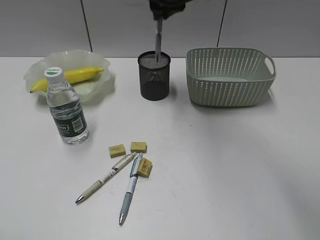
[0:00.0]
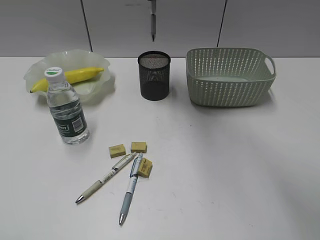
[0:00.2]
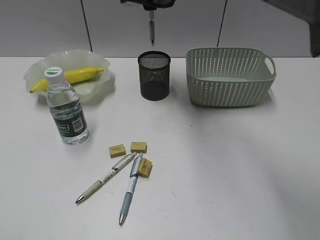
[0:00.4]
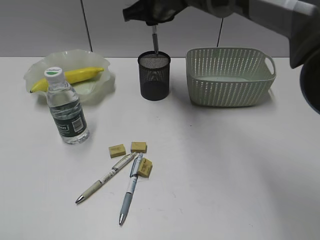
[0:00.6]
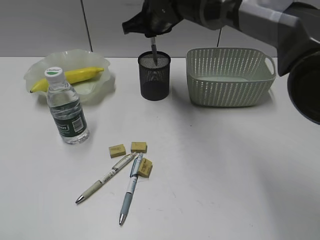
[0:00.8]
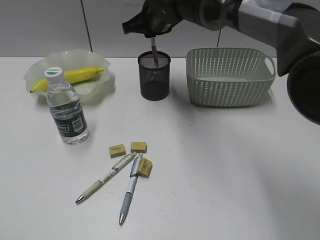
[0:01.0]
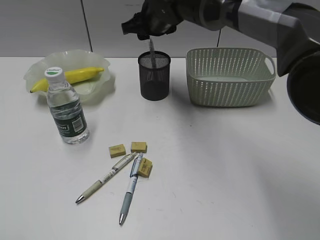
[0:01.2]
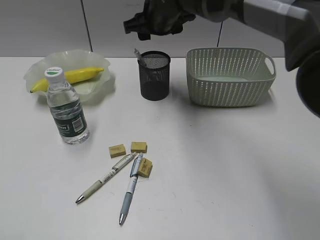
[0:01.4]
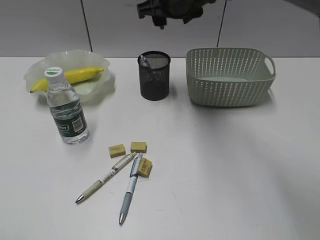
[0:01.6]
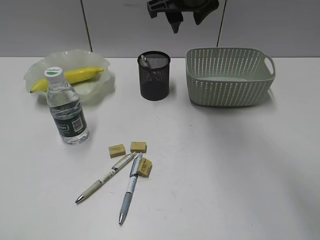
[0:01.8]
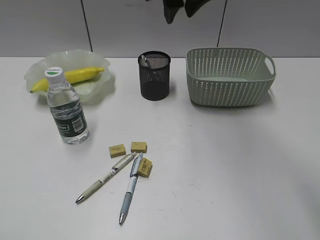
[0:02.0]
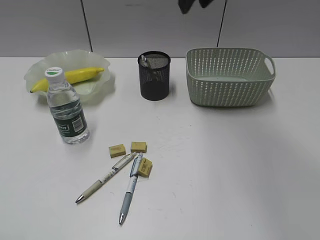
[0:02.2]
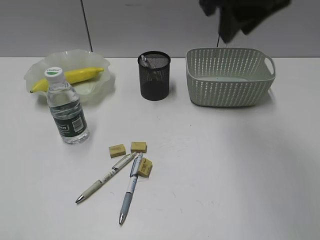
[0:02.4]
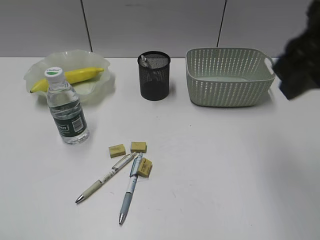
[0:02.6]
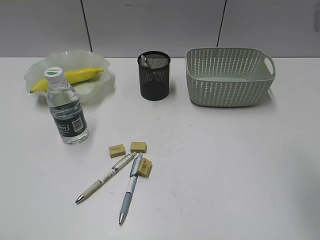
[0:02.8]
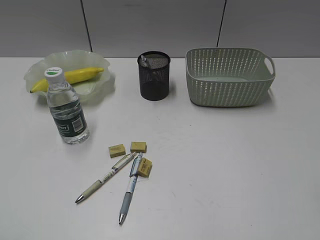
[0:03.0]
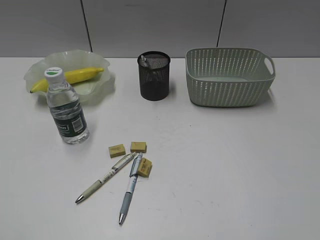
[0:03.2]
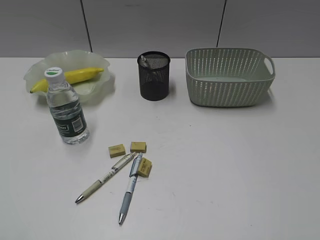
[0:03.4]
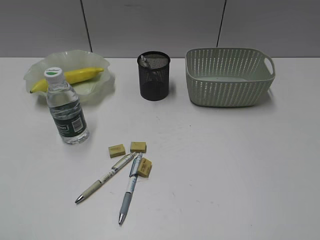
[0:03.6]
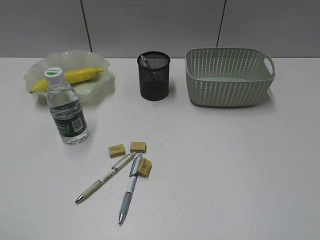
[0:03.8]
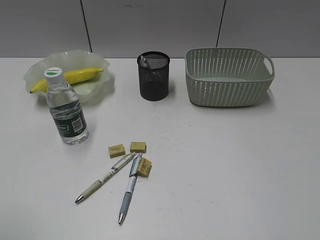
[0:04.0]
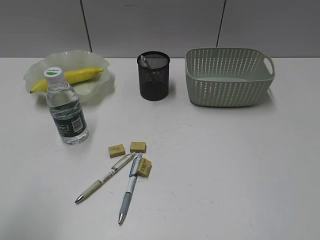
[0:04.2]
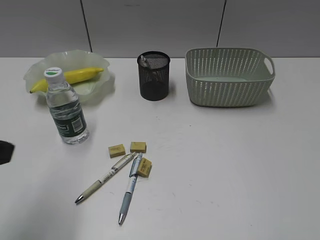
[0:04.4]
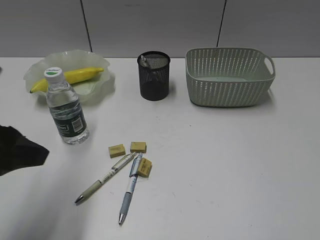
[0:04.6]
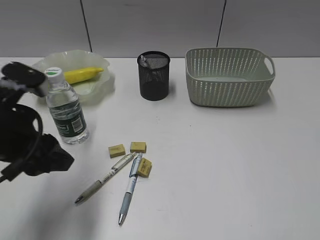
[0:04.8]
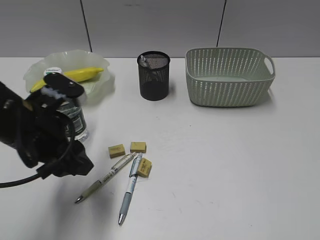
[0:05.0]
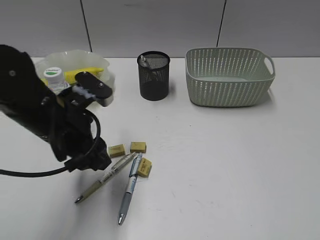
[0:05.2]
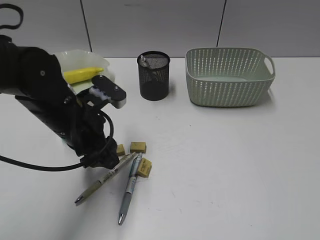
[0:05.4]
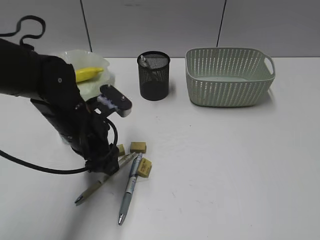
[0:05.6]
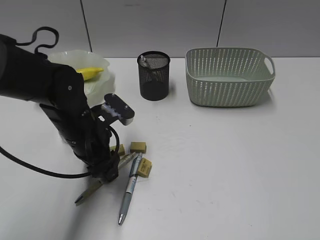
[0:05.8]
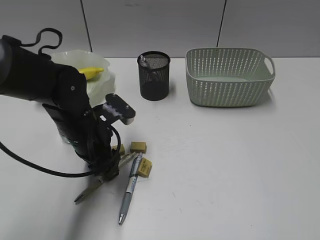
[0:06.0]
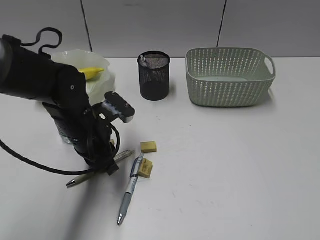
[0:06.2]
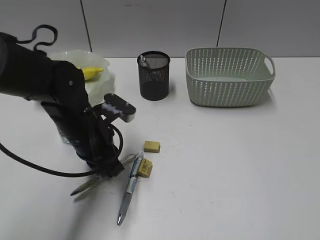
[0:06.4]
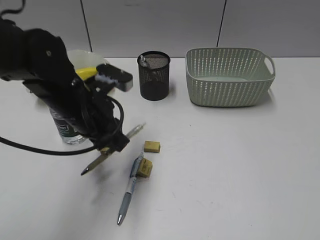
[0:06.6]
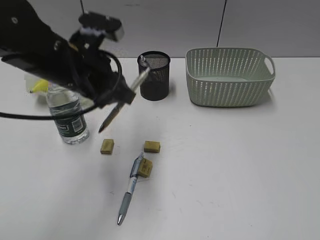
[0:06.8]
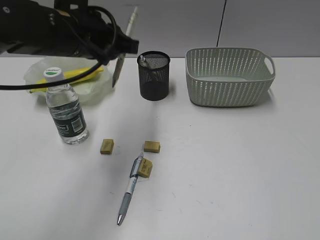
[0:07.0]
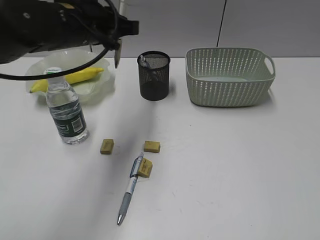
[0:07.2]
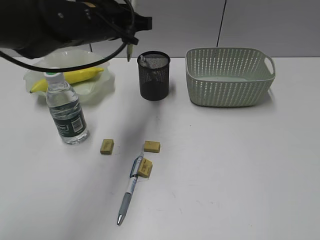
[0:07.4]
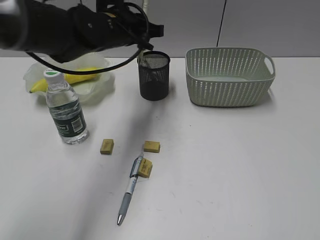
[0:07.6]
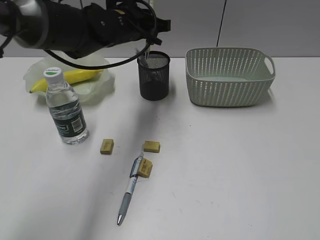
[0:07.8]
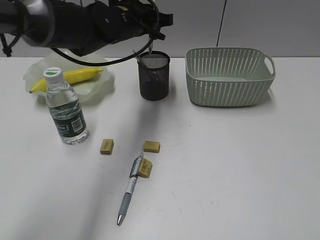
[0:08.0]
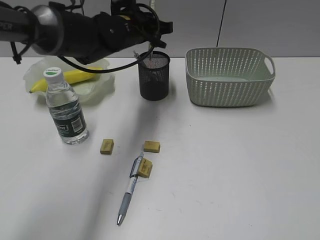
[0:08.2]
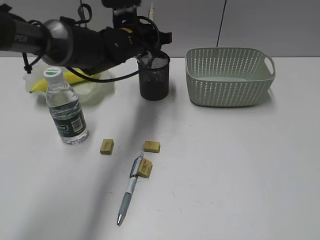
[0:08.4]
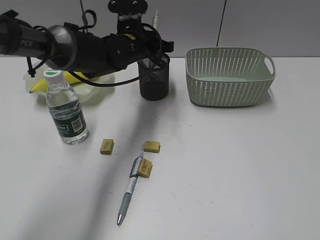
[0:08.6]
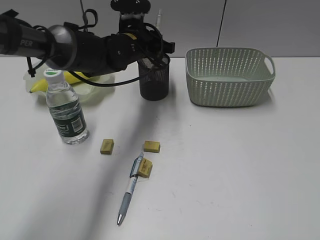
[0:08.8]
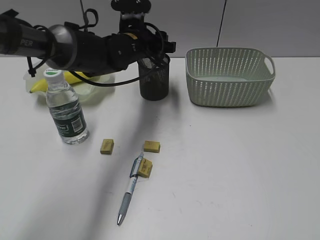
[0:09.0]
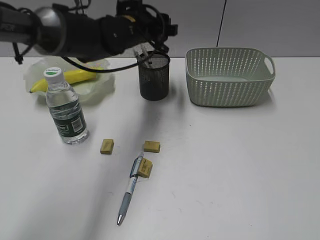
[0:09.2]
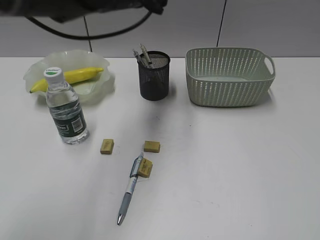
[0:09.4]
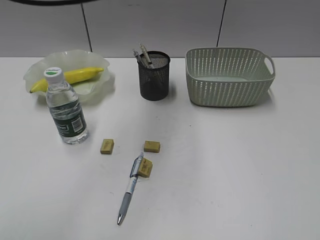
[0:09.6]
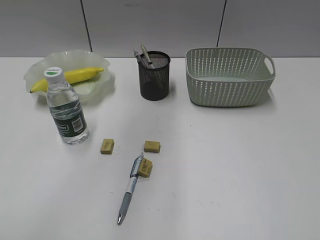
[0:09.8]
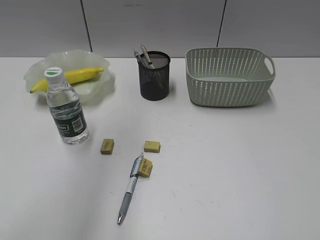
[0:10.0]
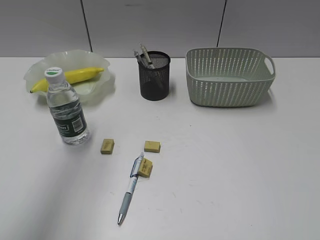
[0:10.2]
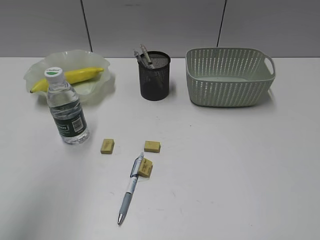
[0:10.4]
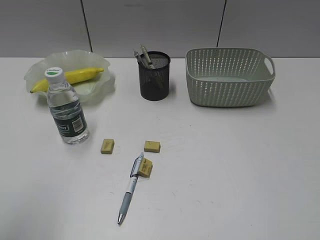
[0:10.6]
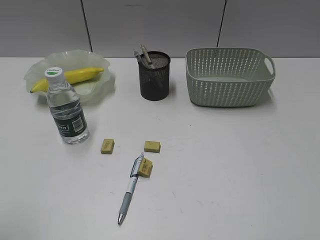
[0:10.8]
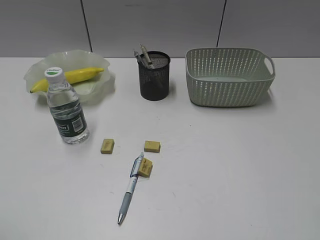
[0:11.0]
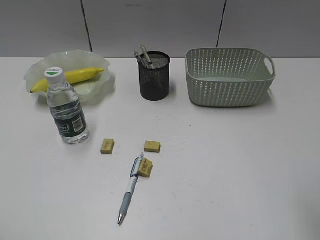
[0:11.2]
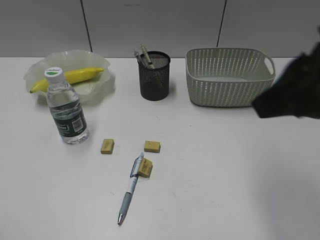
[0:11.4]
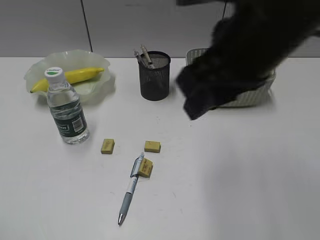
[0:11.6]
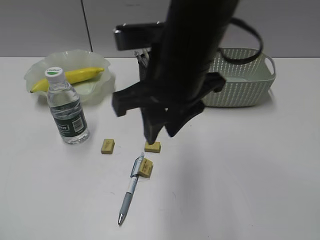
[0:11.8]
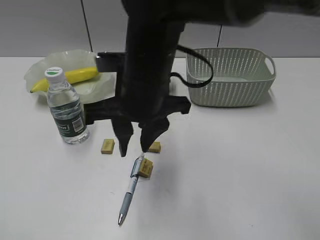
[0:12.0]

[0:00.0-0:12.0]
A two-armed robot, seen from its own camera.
Step, 0:00.0 to 0:01.4: Place the gray pen in pen holder with right gripper.
Step, 0:01.6 to 0:06.2: Grasp the yellow pen with left gripper.
Step, 0:06.4 to 0:09.0: Place the yellow pen in pen holder with left gripper.
0:00.0 to 0:01.6: The right gripper opens its fingers.
0:01.6 to 0:03.0: The right gripper goes roughly 40 cm backward and to the right.
0:03.0 to 0:04.4: The left gripper shifts approximately 15 cm forward and to the right.
0:04.4 to 0:06.0: The left gripper is displaced forward, downward and to the right by some 25 cm.
0:06.0 to 0:07.6: The left gripper heads upward and forward, covering roughly 15 cm, and closes up.
0:07.6 to 0:09.0: The left gripper shifts about 5 cm downward, and opens.
0:09.0 to 0:10.4: The left gripper heads backward, upward and to the left, covering some 40 cm.
0:10.4 to 0:12.0: The right gripper moves to the left and forward, roughly 40 cm. Meanwhile the left gripper goes roughly 20 cm backward and downward.

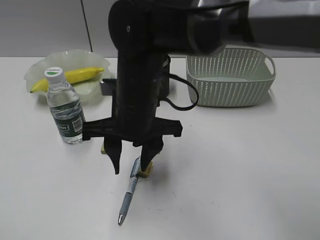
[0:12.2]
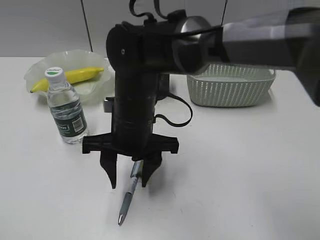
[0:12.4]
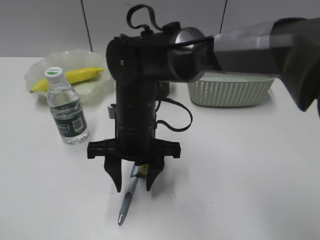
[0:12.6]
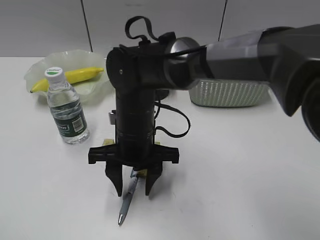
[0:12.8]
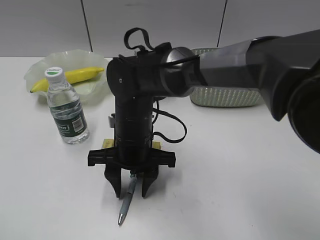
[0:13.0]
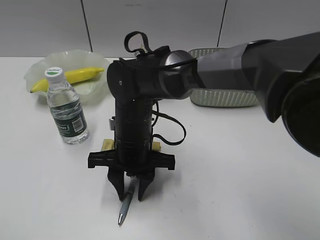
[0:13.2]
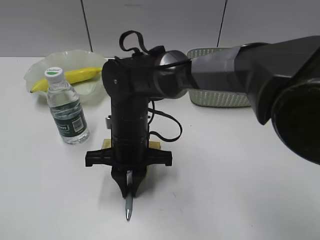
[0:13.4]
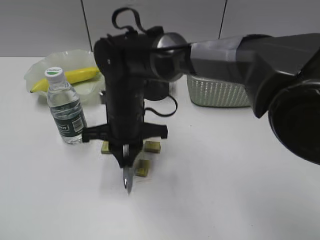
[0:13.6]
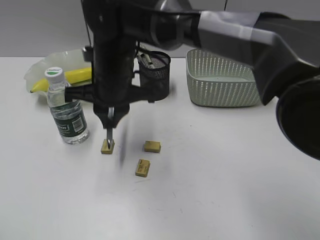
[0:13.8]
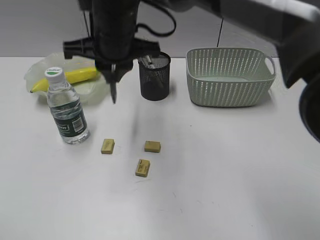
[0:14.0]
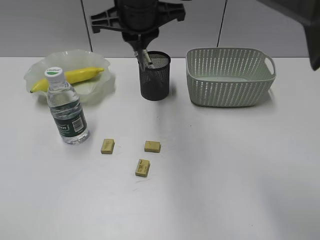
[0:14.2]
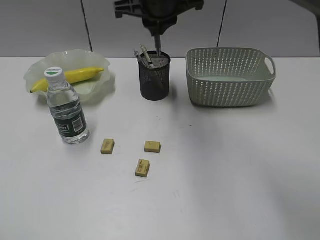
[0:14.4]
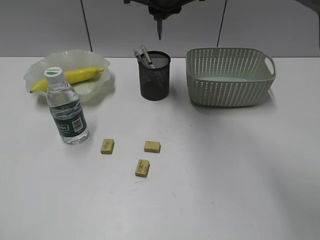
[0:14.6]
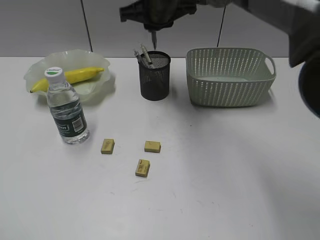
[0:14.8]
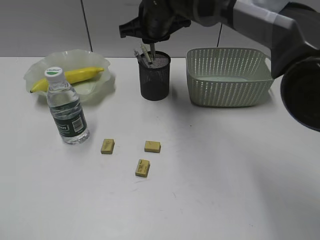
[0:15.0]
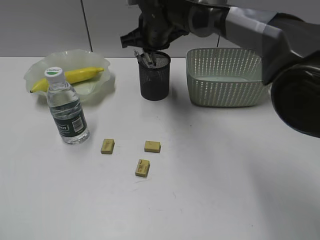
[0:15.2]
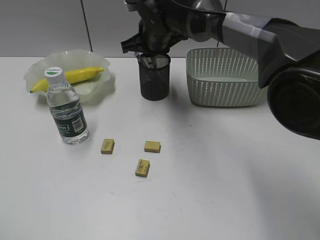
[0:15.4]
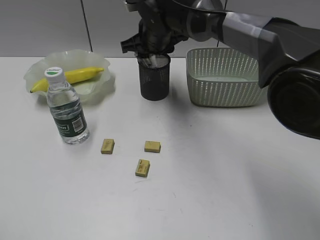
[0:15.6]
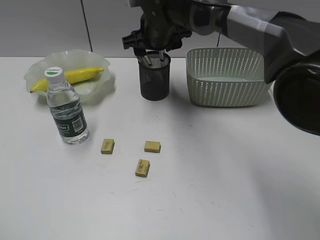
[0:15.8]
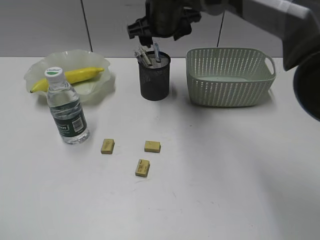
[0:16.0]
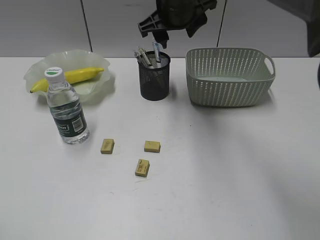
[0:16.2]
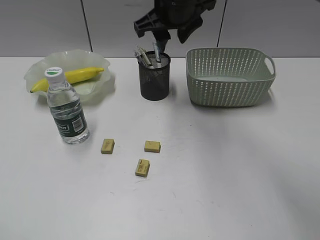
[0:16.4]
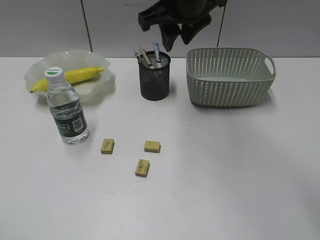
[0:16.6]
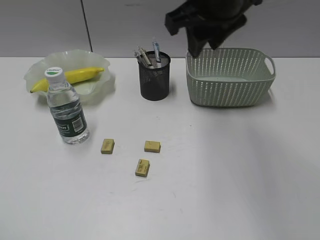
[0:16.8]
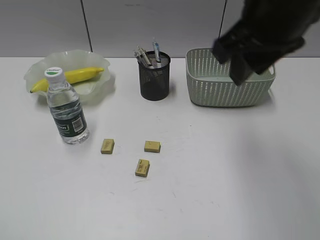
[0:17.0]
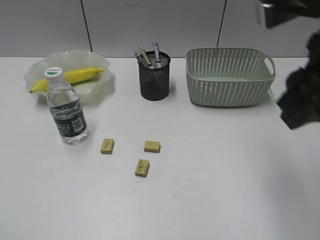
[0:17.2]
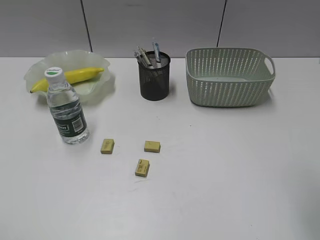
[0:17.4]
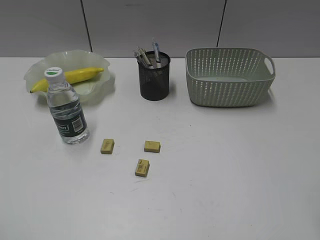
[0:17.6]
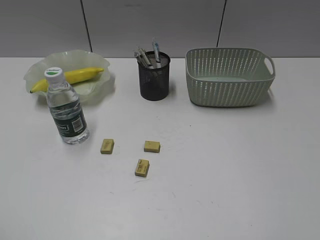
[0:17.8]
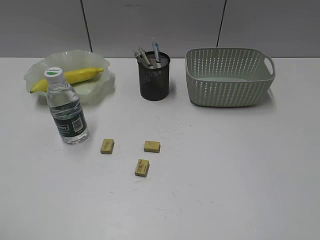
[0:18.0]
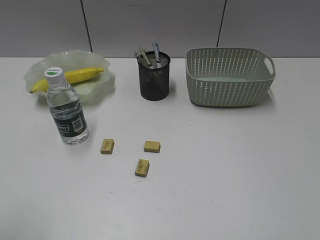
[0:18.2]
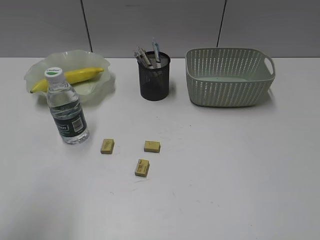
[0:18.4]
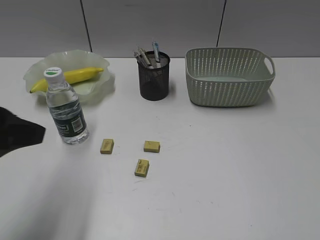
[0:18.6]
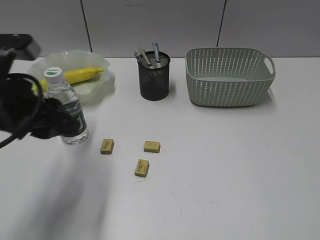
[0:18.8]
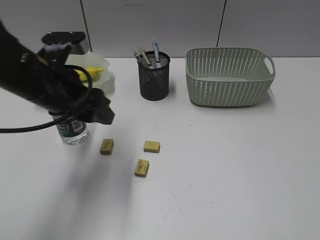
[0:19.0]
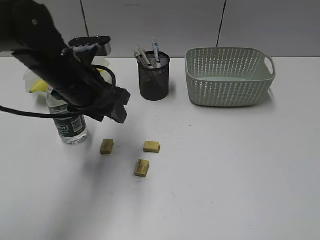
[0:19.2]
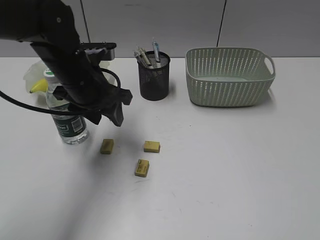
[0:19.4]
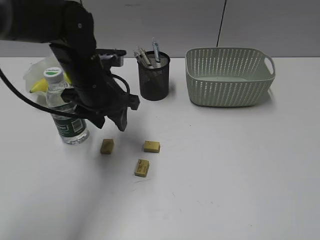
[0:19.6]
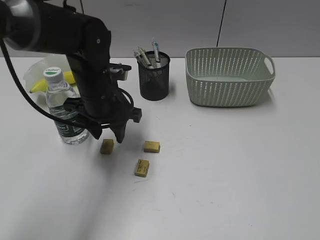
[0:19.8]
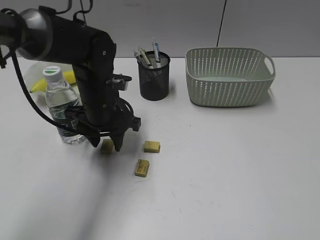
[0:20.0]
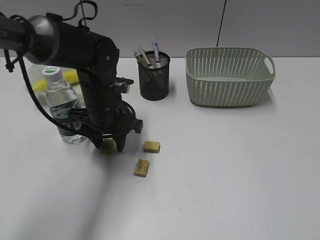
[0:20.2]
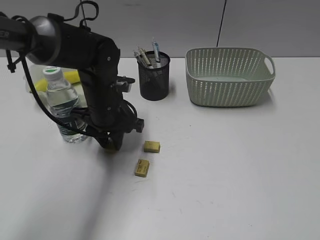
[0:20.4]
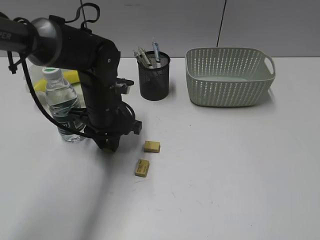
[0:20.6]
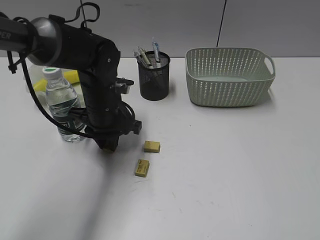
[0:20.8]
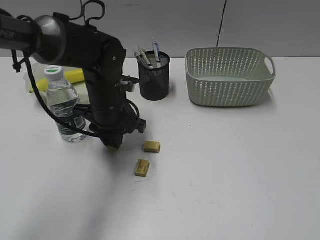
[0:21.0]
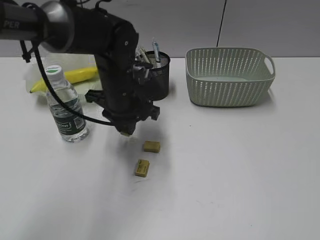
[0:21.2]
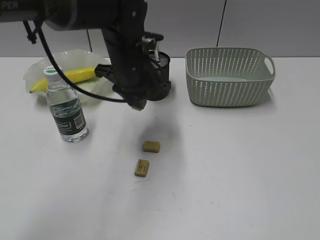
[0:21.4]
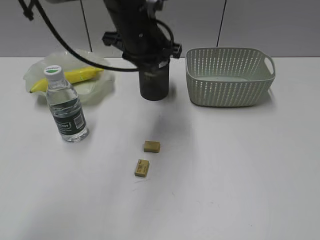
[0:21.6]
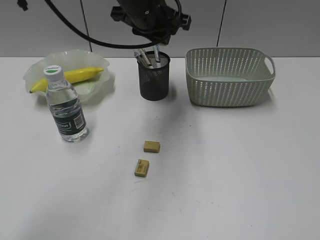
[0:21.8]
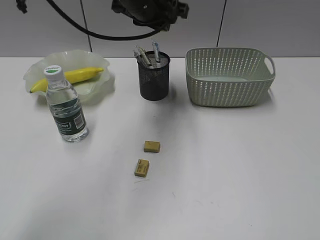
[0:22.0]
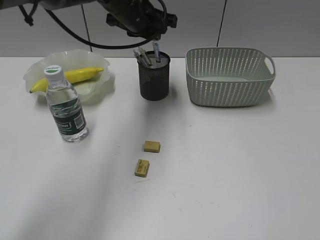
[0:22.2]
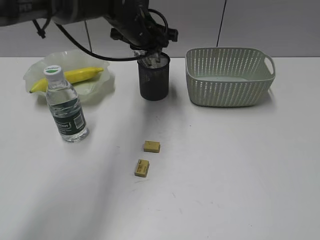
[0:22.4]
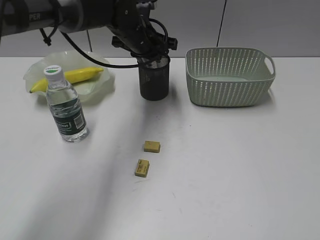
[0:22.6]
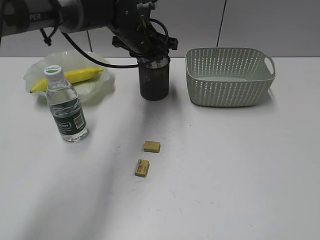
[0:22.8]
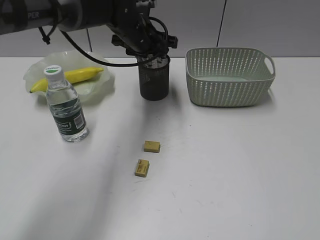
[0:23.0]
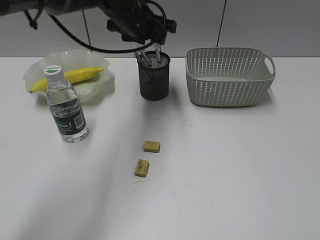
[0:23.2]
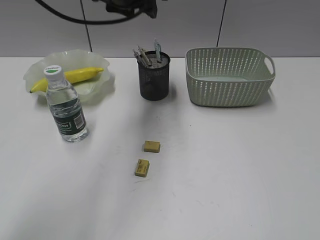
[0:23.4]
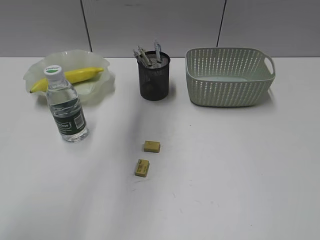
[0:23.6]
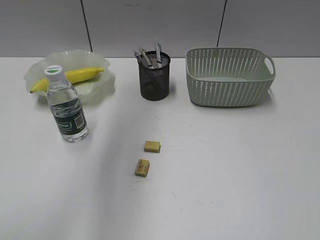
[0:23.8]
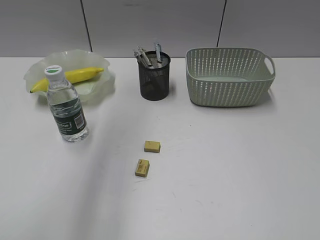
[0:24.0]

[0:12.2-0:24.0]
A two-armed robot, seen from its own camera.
Step, 0:13.6 to 0:15.8: Place the blue pen in pen holder with right gripper.
Step, 0:16.0 to 0:20.8: Grasp the eraser with left gripper.
Step, 0:21.0 to 0:23.0: Place the eraser in pen holder with left gripper.
0:12.2 to 0:13.6: The right gripper is displaced downward by roughly 5 cm, and closes its fingers.
0:13.6 to 0:15.2: The right gripper moves forward and upward, roughly 20 cm.
0:15.2 to 0:16.6: The right gripper moves upward and backward, approximately 15 cm, and opens up.
0:16.6 to 0:18.2: The right gripper shifts some 50 cm backward and to the right.
0:18.2 to 0:19.6: The left gripper shifts approximately 35 cm forward and to the right.
0:19.6 to 0:21.0: The left gripper goes approximately 5 cm downward, and closes its fingers.
0:21.0 to 0:22.6: The left gripper travels forward, upward and to the right by some 15 cm.
0:22.6 to 0:24.0: The left gripper heads upward, backward and to the left, covering approximately 35 cm, and opens up.
